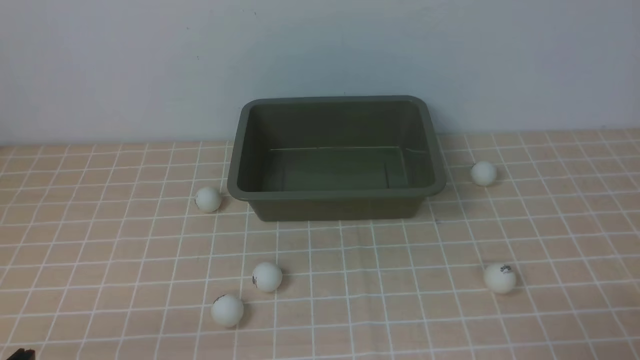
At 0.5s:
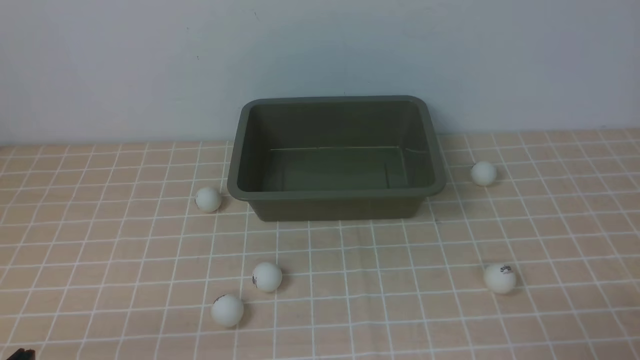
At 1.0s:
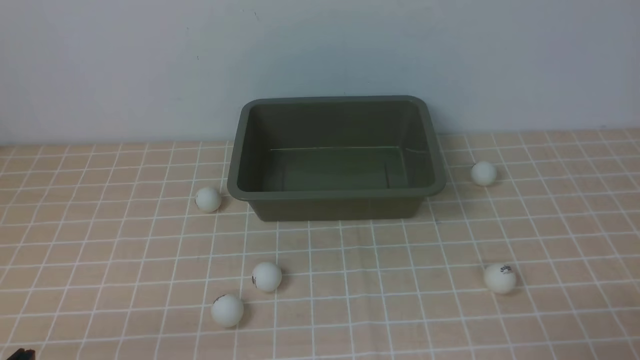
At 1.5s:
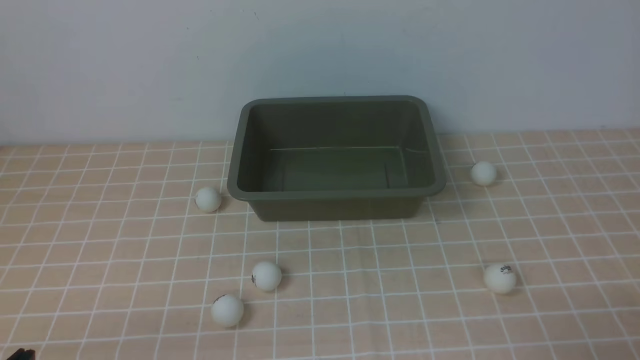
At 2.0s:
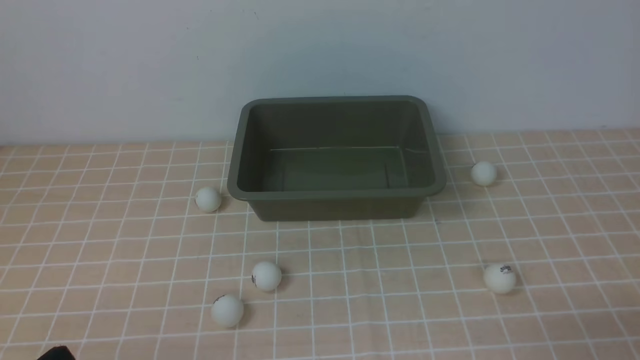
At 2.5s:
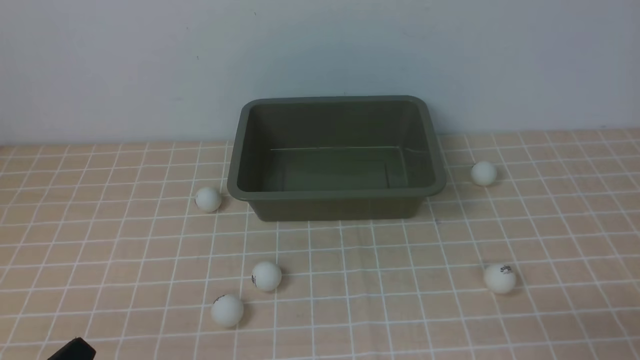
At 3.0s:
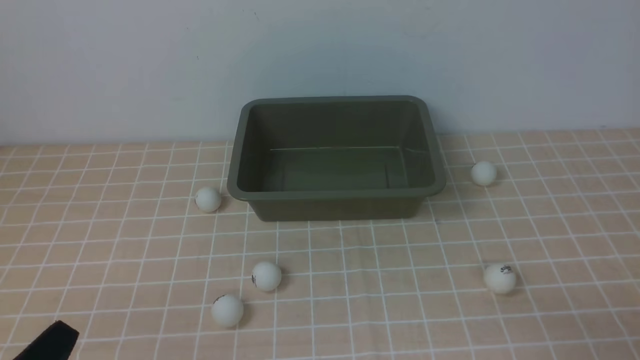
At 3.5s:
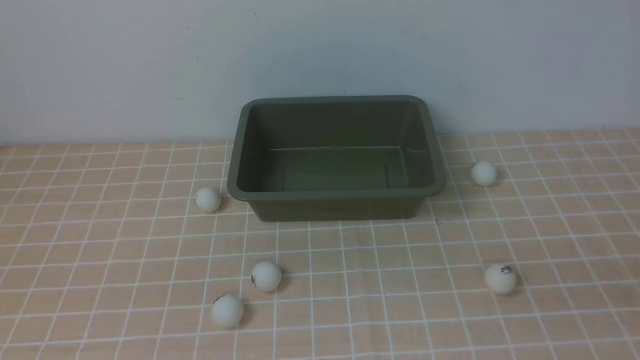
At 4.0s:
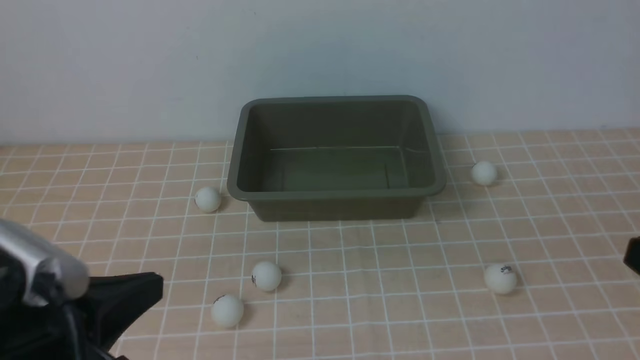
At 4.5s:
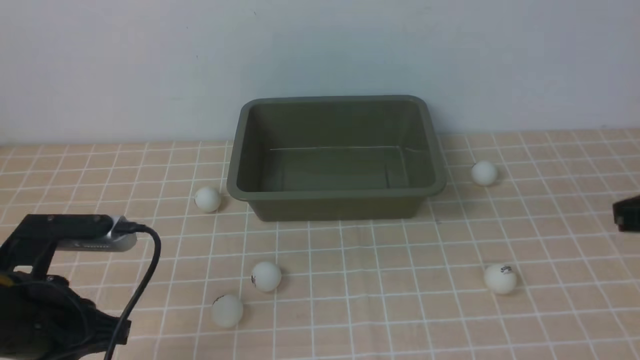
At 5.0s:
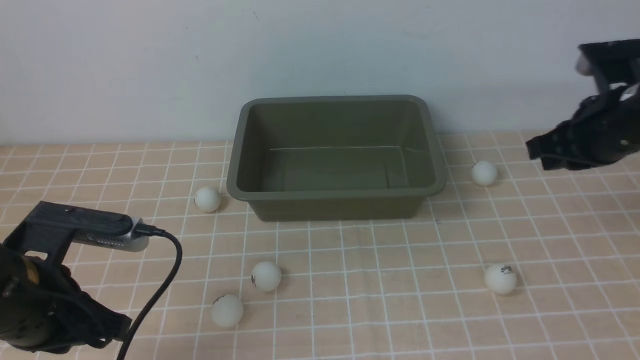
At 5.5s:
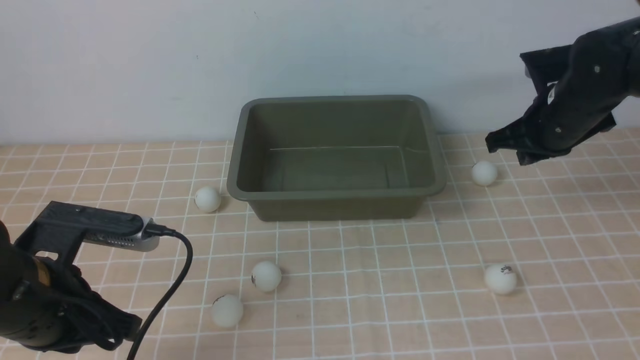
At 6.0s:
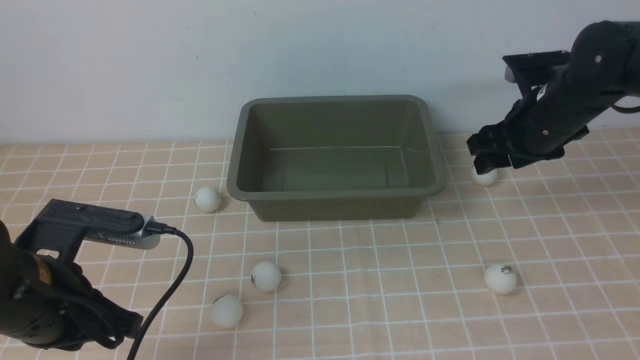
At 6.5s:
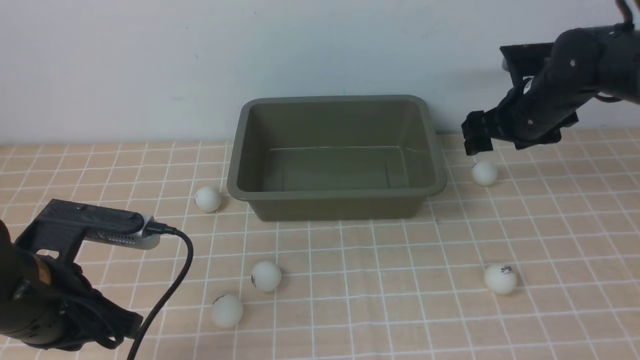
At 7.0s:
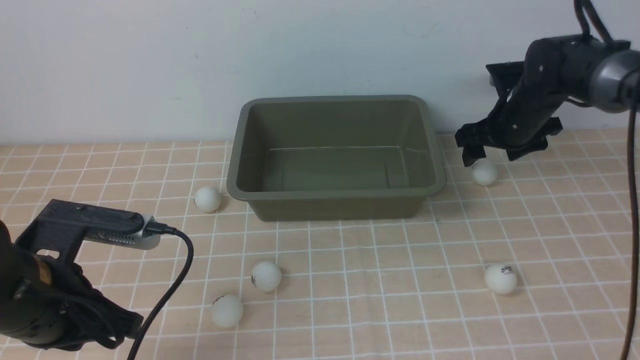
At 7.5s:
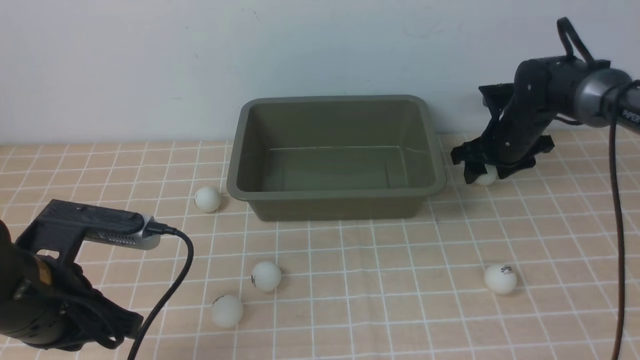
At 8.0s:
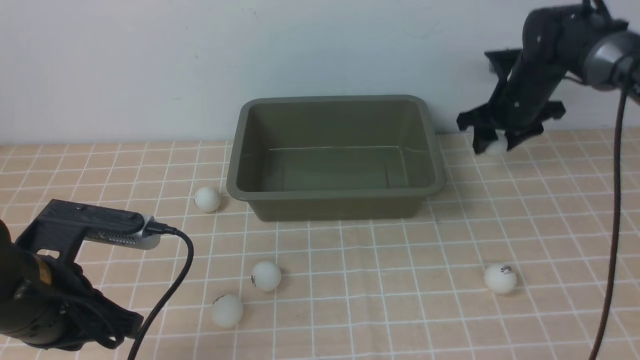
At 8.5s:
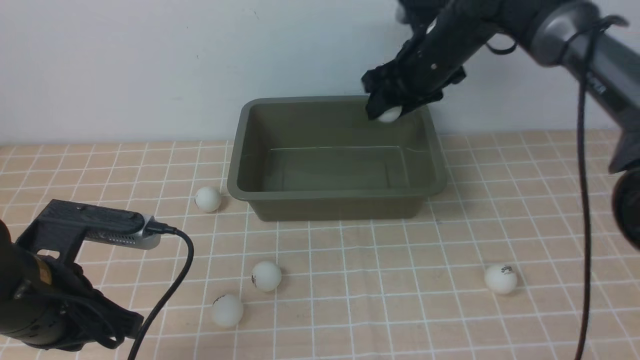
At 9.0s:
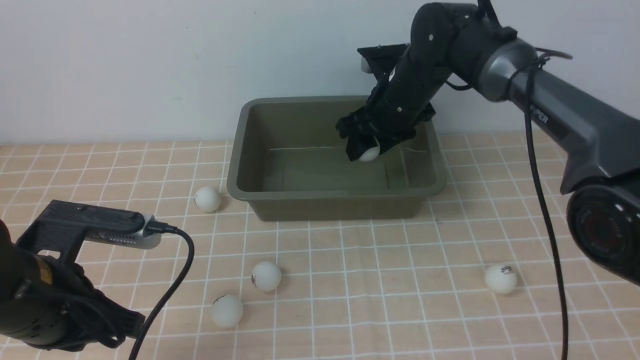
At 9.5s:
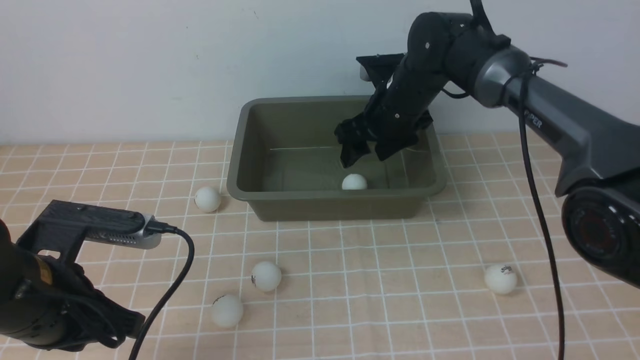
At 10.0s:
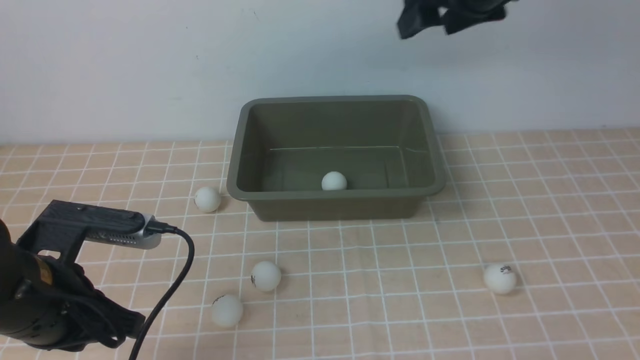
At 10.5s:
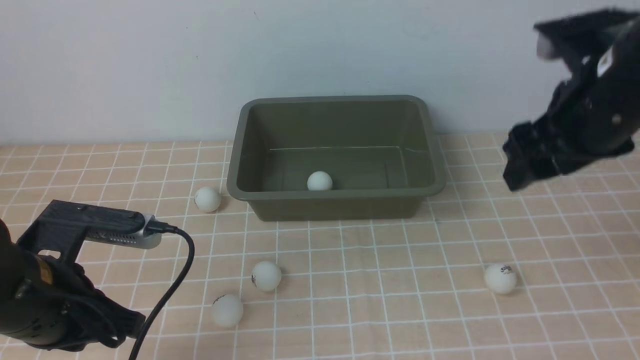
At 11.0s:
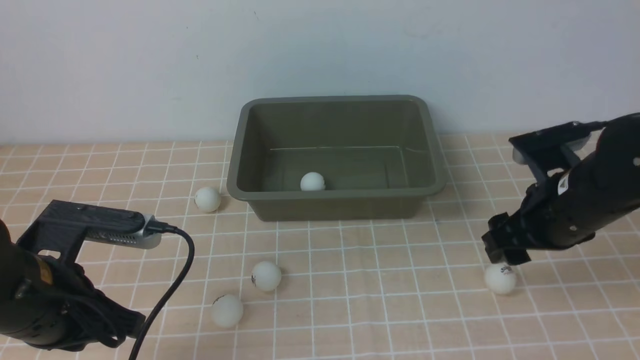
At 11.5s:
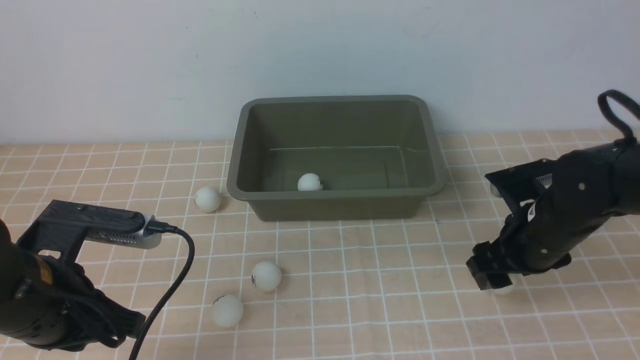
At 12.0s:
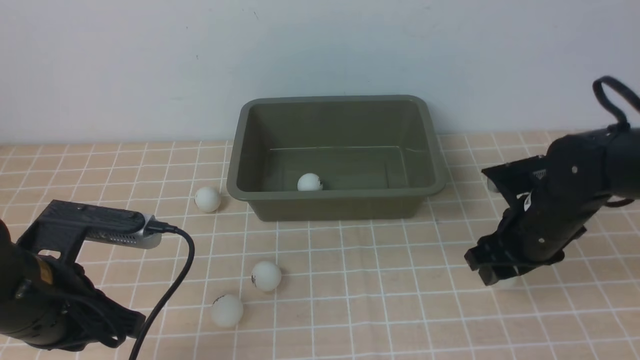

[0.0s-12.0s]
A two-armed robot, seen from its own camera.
Step, 0.0s to 8.0s: use the right arm to clamp the table tennis ball closest to it.
Step, 8.5s to 9.5s: use the right arm to put the table tennis ball into the box.
2.0s to 4.0s: The left gripper is displaced upward and forward by approximately 10 cm.
4.0s to 6.0s: The right gripper moves forward, about 30 cm, and opens; the left gripper goes roughly 10 cm forward.
6.0s to 8.0s: The right gripper heads forward, covering roughly 10 cm.
8.0s to 10.0s: The right gripper moves up and down over about 15 cm, changing direction 2 times.
10.0s to 12.0s: The right gripper heads downward and backward, covering some 20 cm.

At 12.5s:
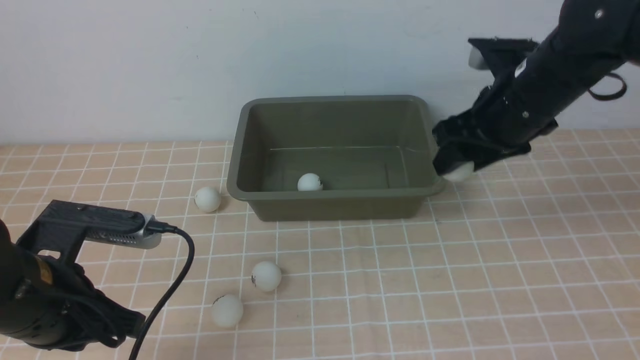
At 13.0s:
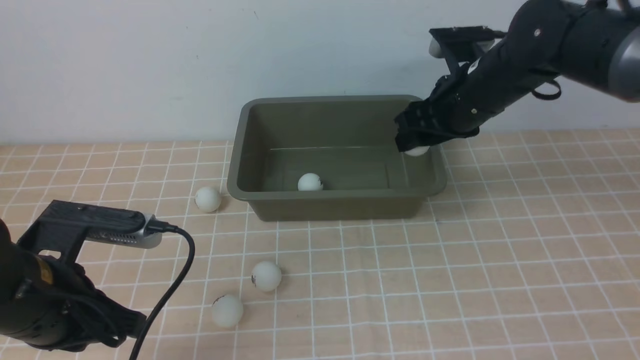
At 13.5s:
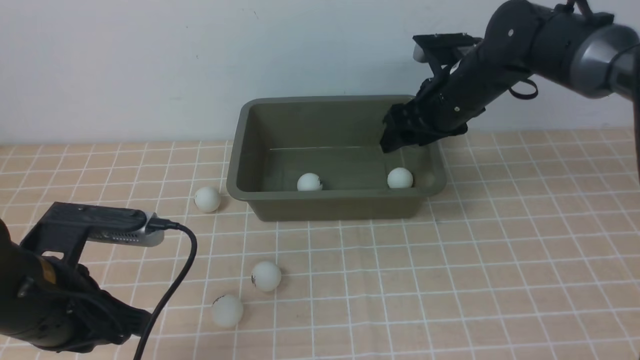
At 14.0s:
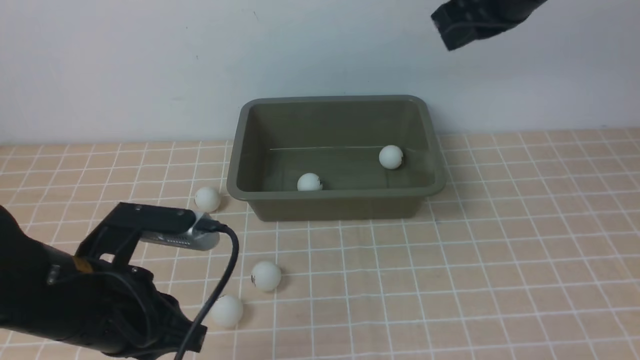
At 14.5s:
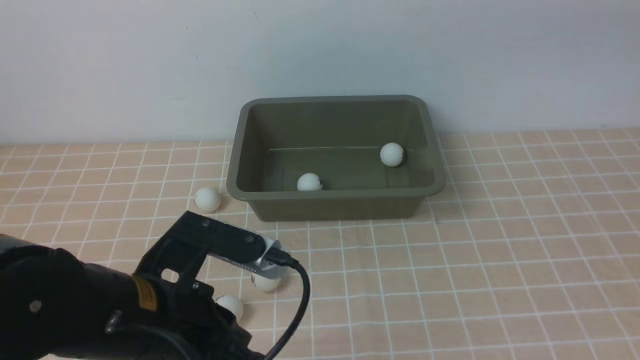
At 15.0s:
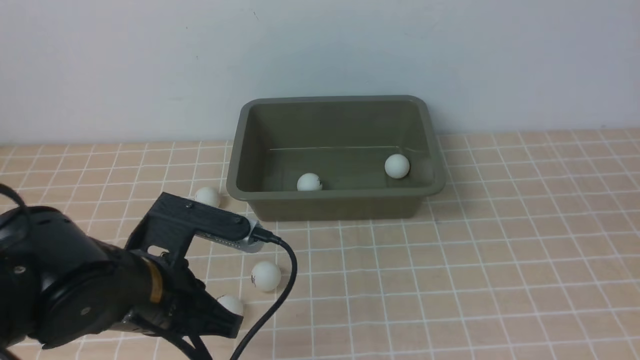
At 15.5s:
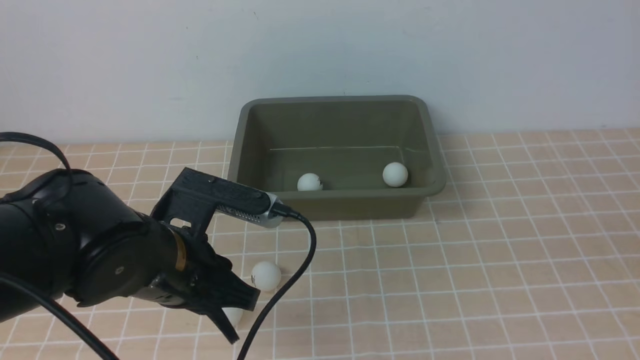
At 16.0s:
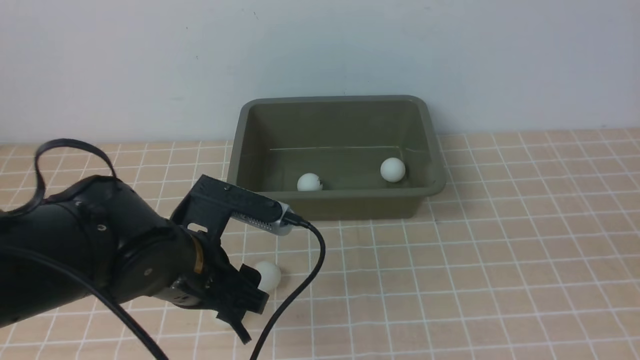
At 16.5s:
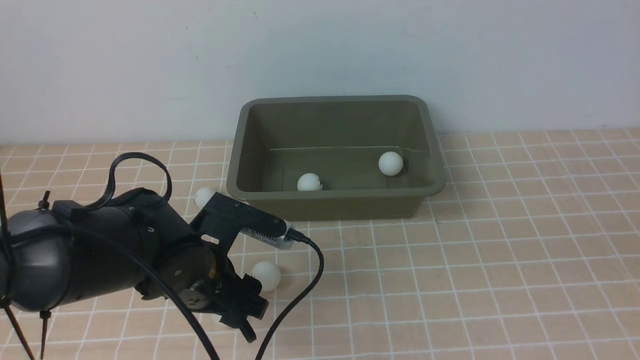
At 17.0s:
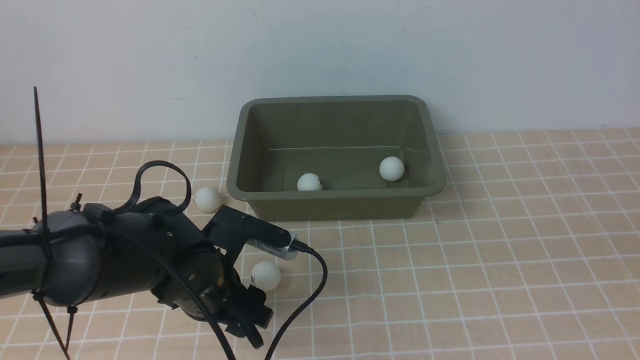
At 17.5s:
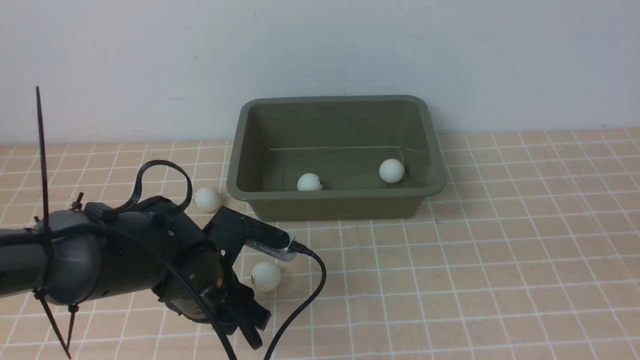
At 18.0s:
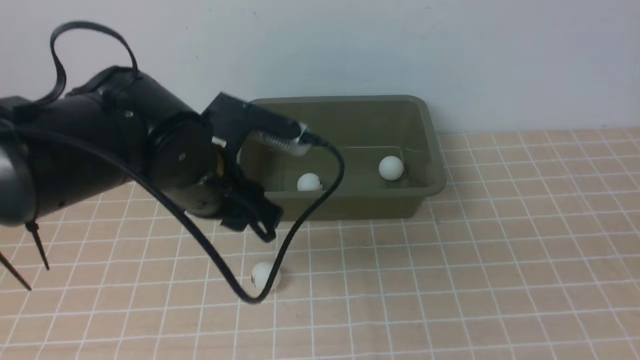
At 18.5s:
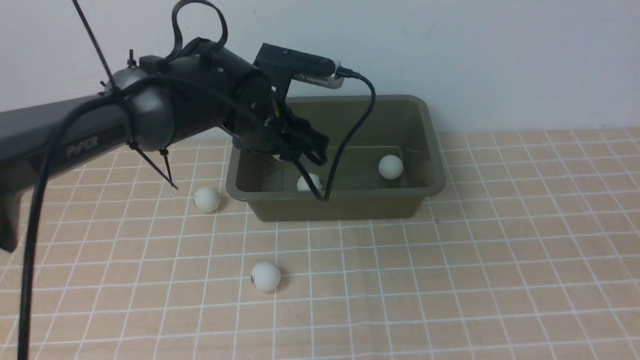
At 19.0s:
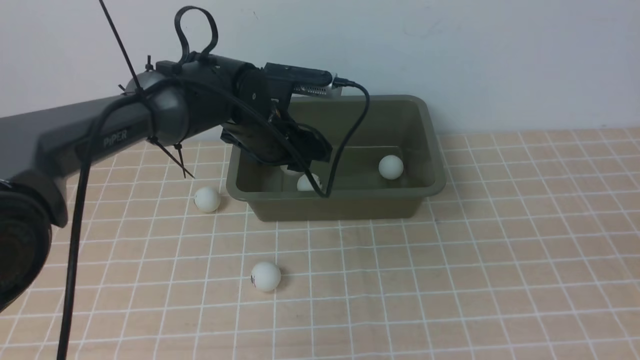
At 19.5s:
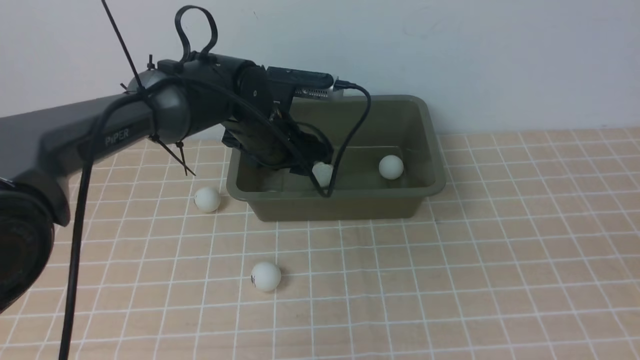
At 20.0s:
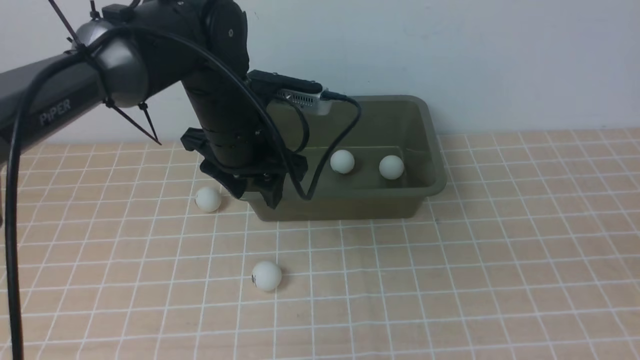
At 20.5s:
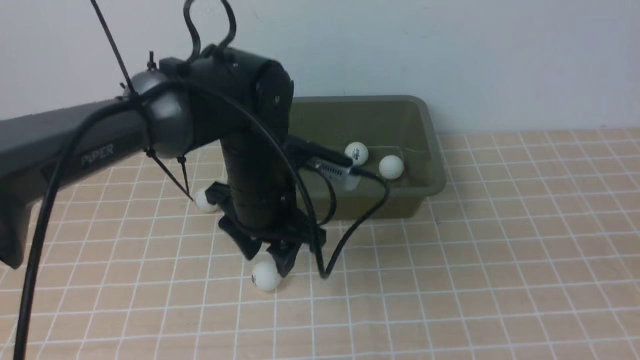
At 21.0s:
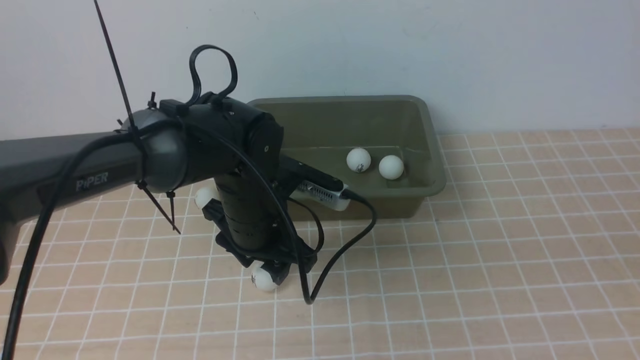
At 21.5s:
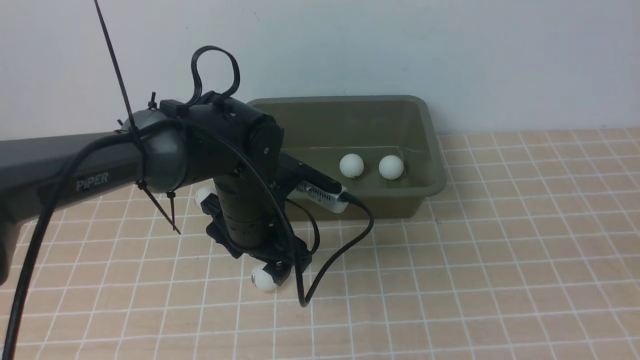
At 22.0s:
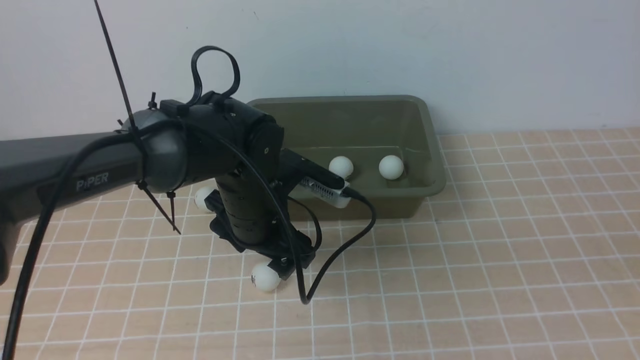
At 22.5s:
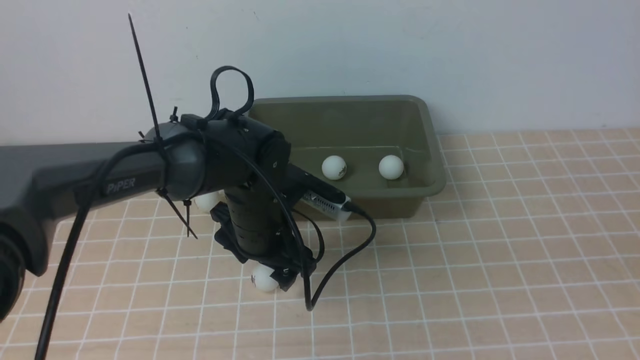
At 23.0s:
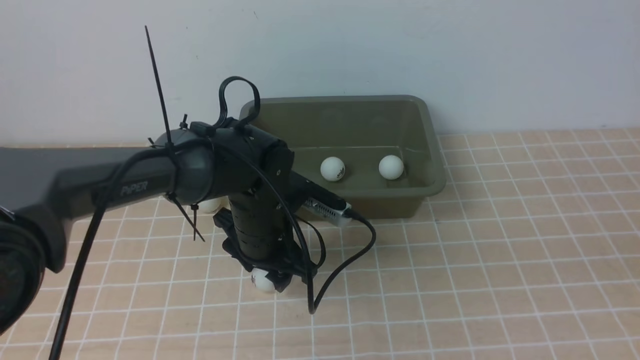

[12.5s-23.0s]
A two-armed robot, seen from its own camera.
Step, 13.0s to 13.5s: use the right arm to put the table tennis ball into the box.
Step, 14.0s to 17.5s: use the left arm to clamp the table tennis ball closest to it.
Step, 18.0s to 19.5s: use the left arm to put the table tennis ball into the box.
12.5s to 14.5s: The right gripper heads upward and backward, covering roughly 25 cm, and closes. The left gripper travels to the right by about 10 cm.
14.5s to 16.5s: The right gripper goes approximately 20 cm backward and downward; the left gripper is displaced forward and downward by roughly 10 cm, and opens its fingers.
16.5s to 19.0s: The left gripper heads forward, covering about 15 cm.
19.0s to 21.0s: The left gripper travels backward by roughly 10 cm.
21.0s to 23.0s: The grippers stay close to where they were, moving slightly.
